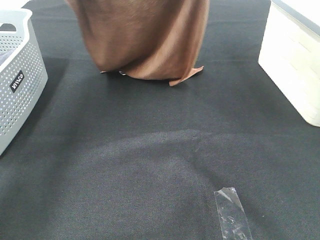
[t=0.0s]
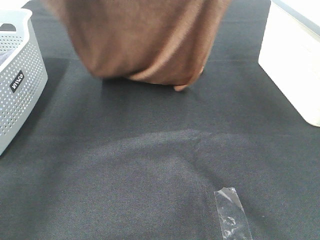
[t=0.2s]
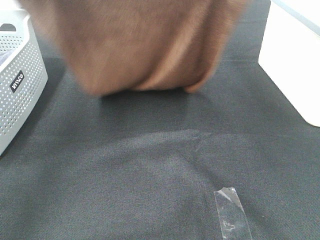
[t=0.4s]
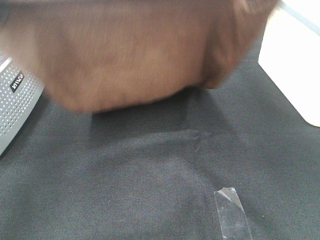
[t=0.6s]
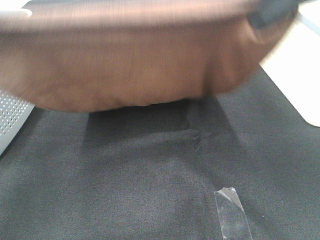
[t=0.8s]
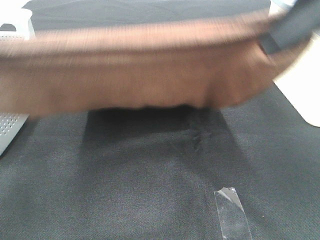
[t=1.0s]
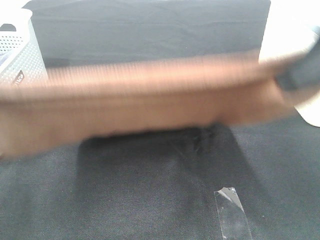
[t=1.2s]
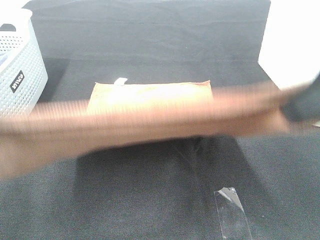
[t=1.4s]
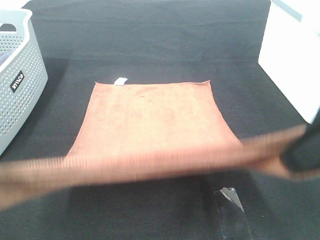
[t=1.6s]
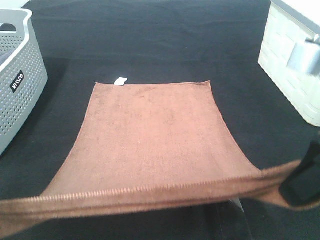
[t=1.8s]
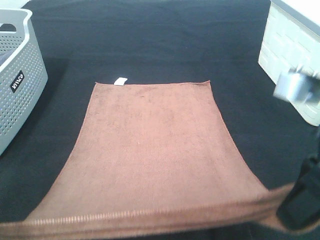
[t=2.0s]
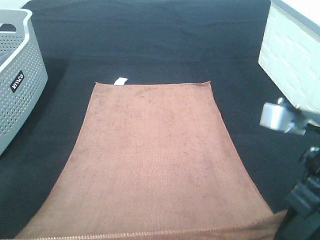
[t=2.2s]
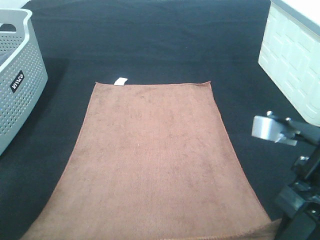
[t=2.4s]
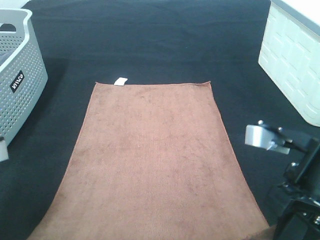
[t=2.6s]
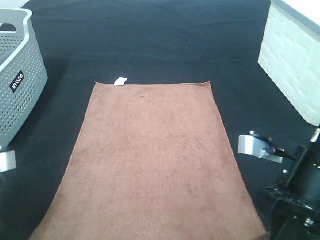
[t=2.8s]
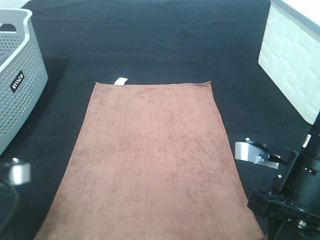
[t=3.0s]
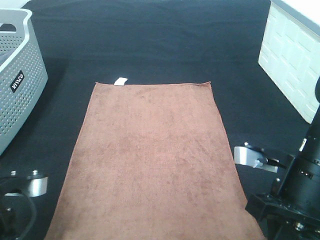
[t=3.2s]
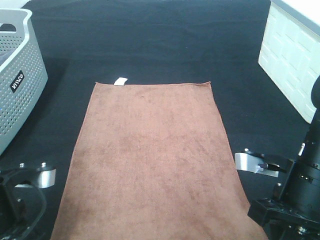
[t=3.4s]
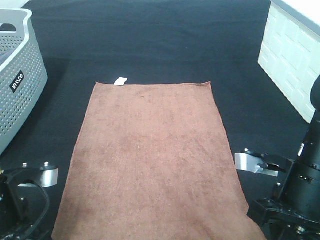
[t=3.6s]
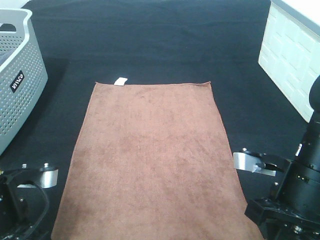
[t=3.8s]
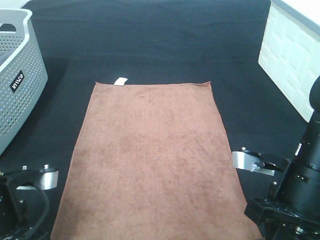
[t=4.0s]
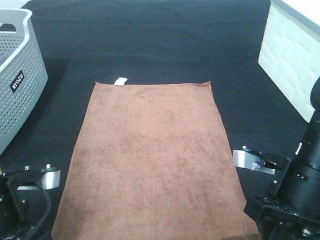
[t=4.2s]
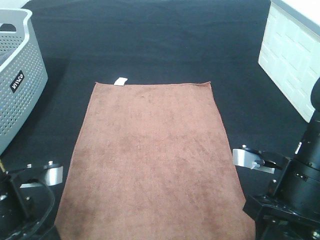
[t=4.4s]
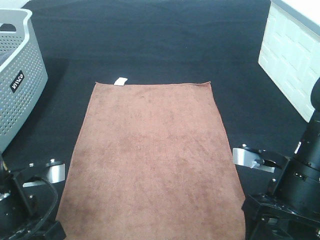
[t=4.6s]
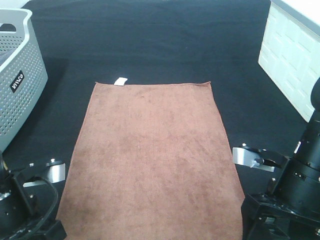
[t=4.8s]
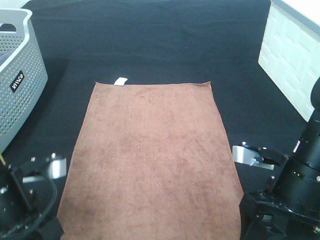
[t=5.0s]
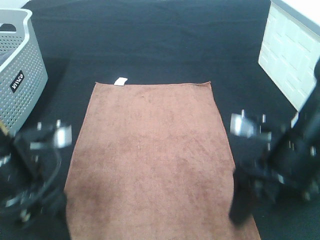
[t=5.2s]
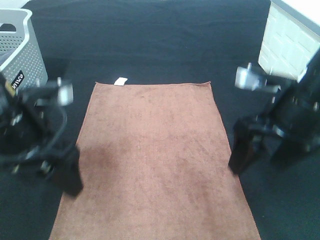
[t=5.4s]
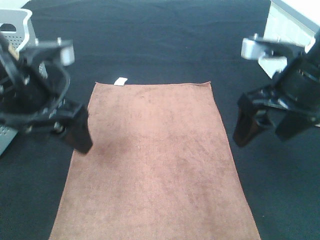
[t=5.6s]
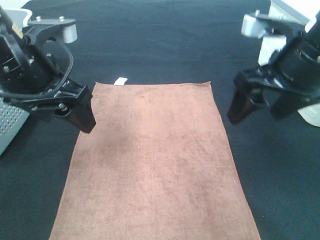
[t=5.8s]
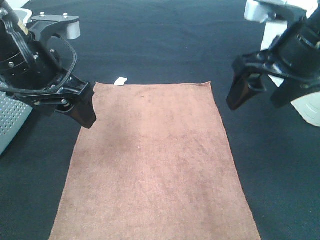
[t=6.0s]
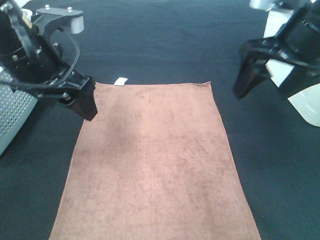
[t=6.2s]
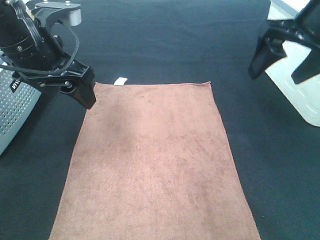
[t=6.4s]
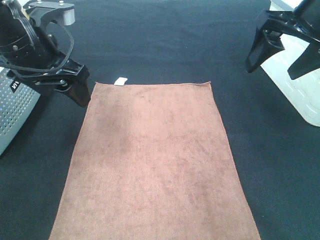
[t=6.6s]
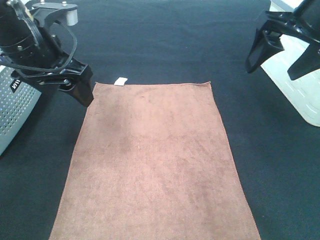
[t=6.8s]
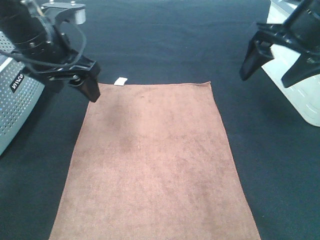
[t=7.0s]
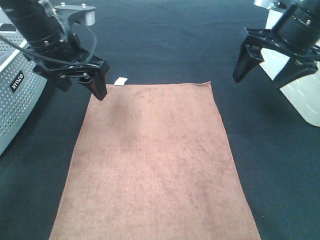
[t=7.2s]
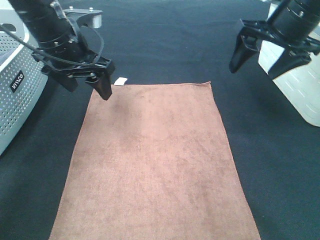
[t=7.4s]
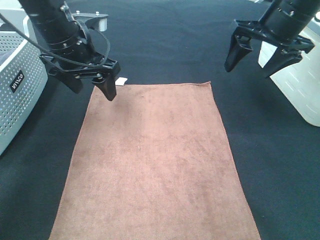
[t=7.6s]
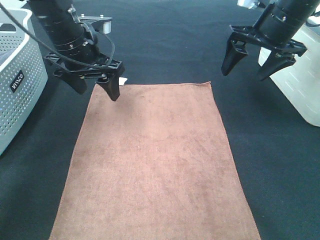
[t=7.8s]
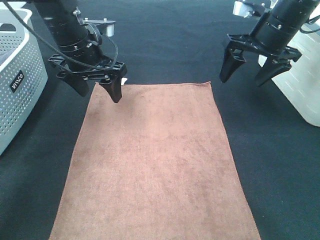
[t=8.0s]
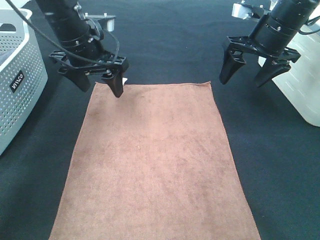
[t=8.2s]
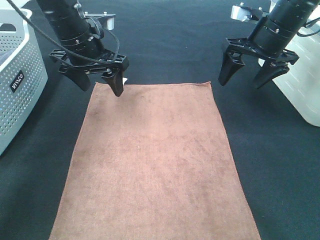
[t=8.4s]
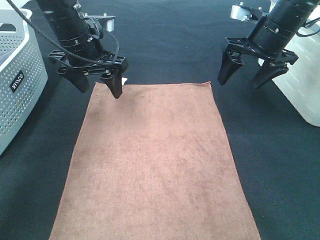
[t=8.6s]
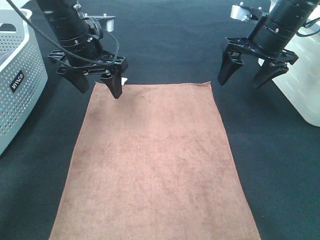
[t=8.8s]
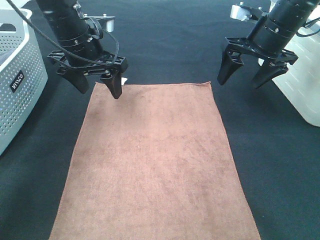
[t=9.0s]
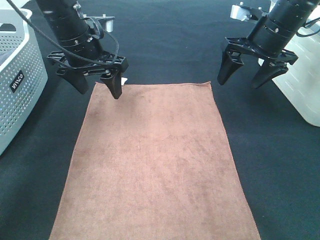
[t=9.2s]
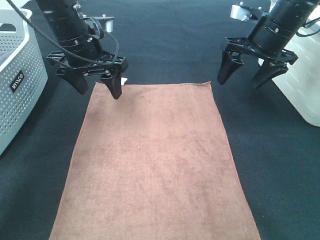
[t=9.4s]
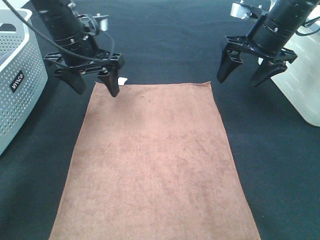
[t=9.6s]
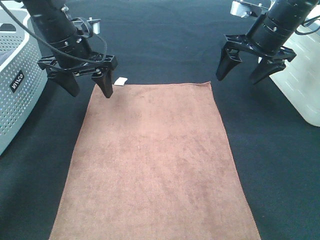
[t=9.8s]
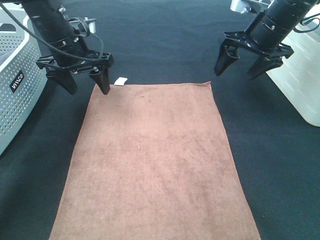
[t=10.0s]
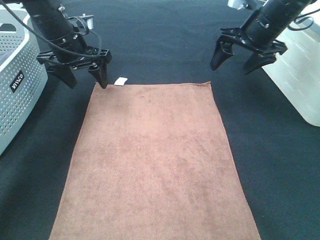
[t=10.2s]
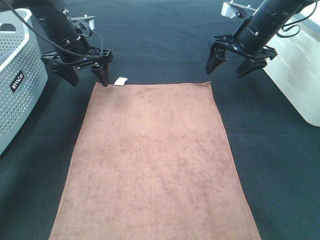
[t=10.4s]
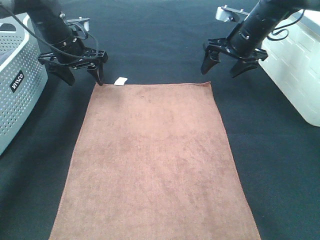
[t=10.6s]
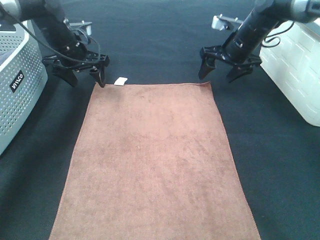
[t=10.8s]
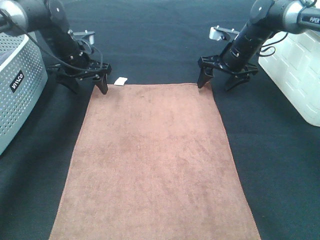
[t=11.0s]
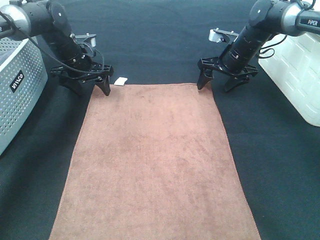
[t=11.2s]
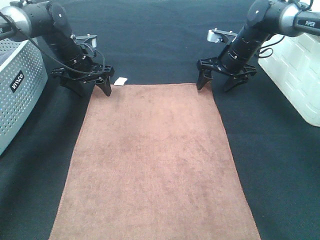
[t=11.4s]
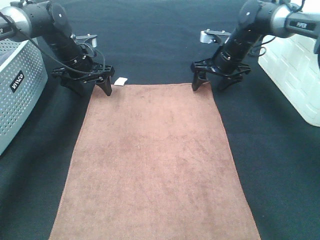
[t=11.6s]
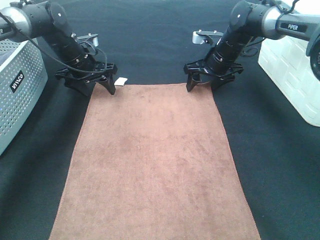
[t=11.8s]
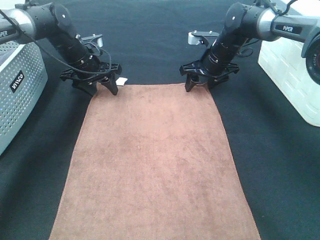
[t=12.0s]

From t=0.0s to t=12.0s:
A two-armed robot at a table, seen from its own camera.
Task of the whole recording: Remove the towel and place it.
Step, from t=0.8s to t=9.8s: Left hand:adjust the brown towel.
Step, from t=0.8s to t=9.8s: Right hand:adjust the brown towel.
From t=0.0s to t=1.6s: The two grippers go roughly 25 cm backward and downward.
From t=1.6s to t=3.0s: The grippers both shift downward by roughly 15 cm.
From t=3.0s to t=4.4s: The left gripper opens its fingers, while the right gripper opens up.
From t=4.4s to t=6.0s: The right gripper moves upward and forward, roughly 15 cm, and opens. Meanwhile the left gripper goes roughly 15 cm forward and upward.
From t=6.0s to t=7.6s: Both grippers travel together forward, roughly 10 cm.
From t=7.6s to t=9.0s: The grippers move only a little.
From t=9.0s to t=10.4s: The right gripper shifts about 5 cm forward. The left gripper goes some 10 cm forward and to the left.
From t=10.4s to t=12.0s: The right gripper heads downward and to the left, covering some 10 cm. Meanwhile the left gripper moves downward, approximately 5 cm.

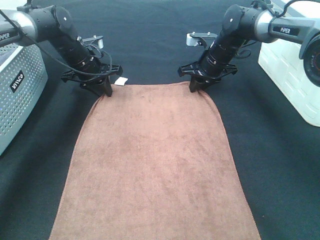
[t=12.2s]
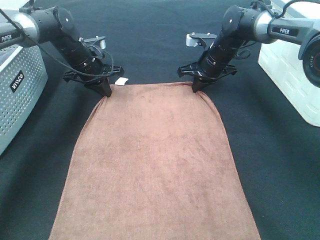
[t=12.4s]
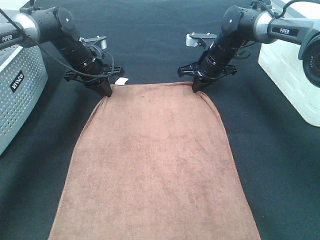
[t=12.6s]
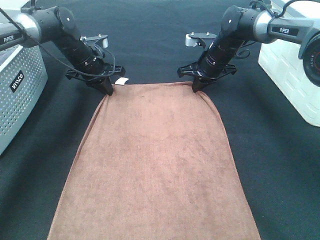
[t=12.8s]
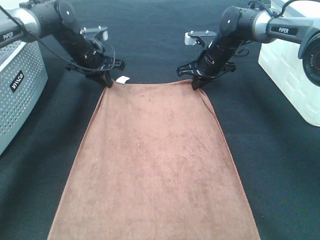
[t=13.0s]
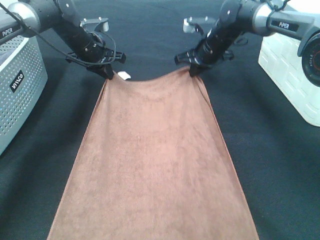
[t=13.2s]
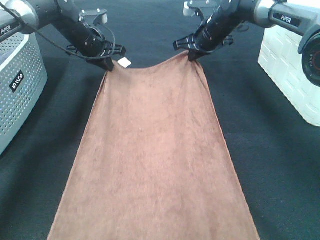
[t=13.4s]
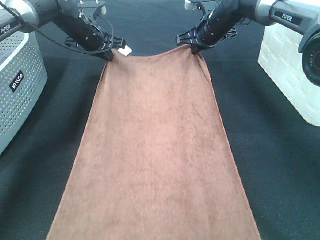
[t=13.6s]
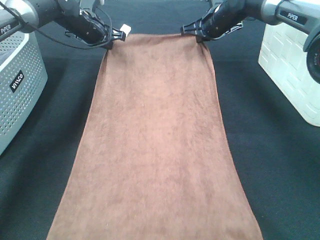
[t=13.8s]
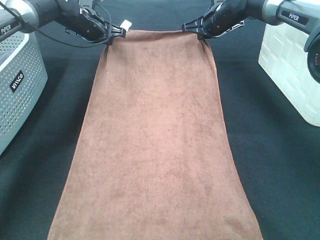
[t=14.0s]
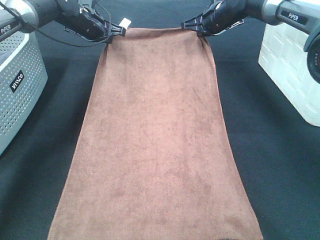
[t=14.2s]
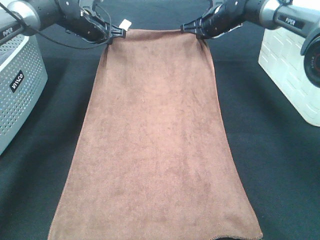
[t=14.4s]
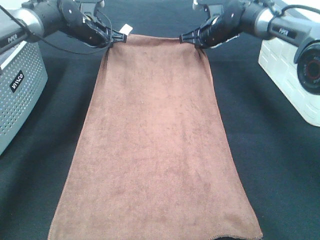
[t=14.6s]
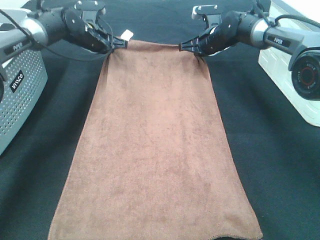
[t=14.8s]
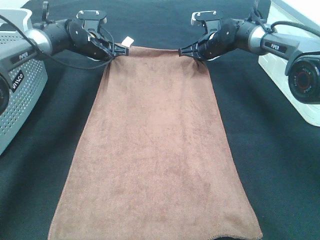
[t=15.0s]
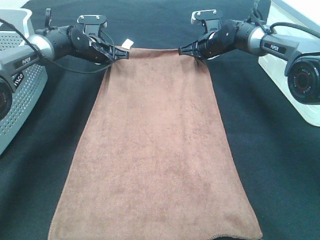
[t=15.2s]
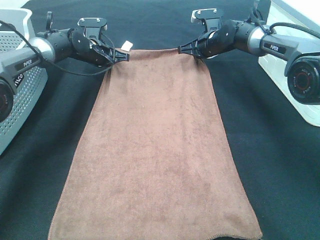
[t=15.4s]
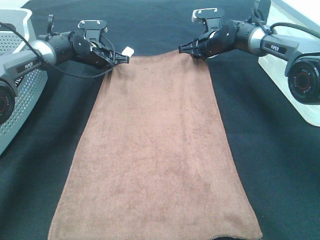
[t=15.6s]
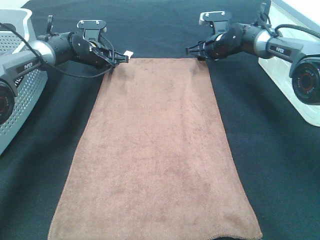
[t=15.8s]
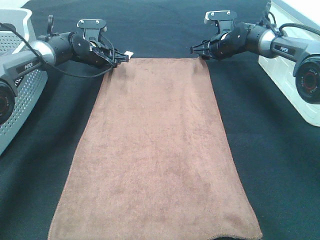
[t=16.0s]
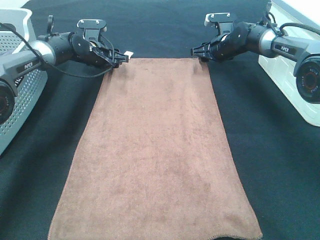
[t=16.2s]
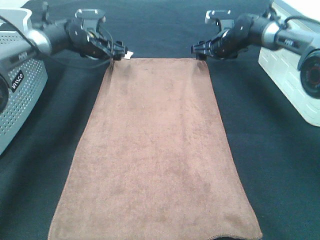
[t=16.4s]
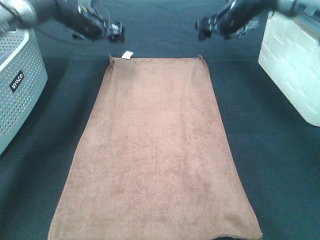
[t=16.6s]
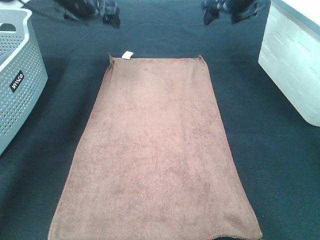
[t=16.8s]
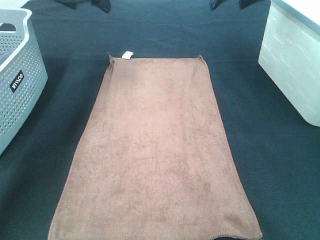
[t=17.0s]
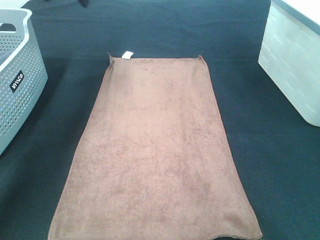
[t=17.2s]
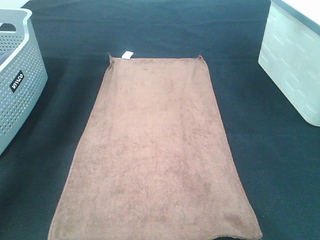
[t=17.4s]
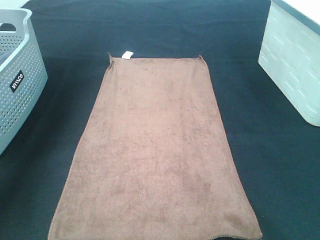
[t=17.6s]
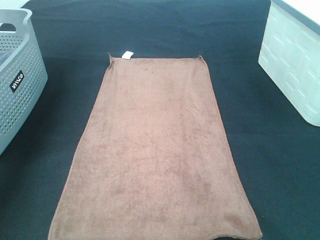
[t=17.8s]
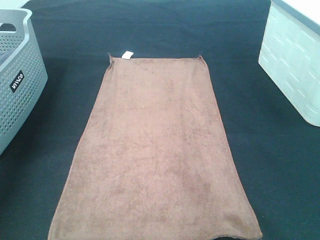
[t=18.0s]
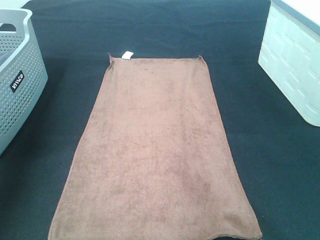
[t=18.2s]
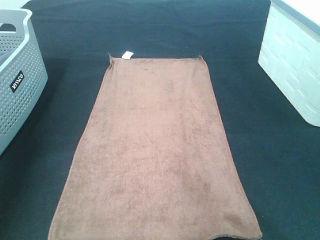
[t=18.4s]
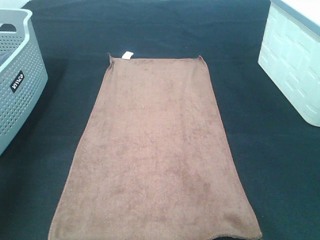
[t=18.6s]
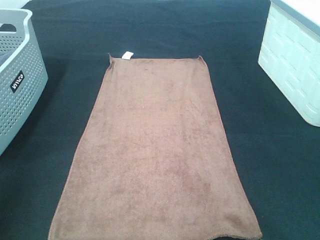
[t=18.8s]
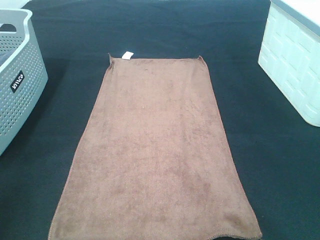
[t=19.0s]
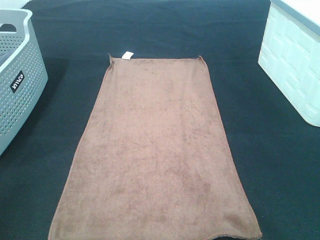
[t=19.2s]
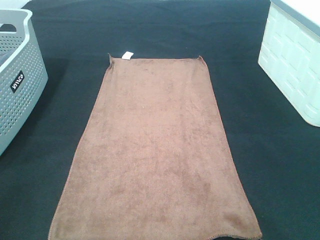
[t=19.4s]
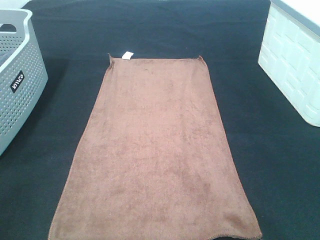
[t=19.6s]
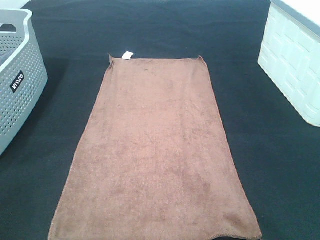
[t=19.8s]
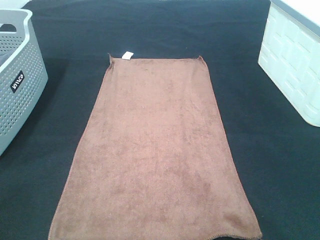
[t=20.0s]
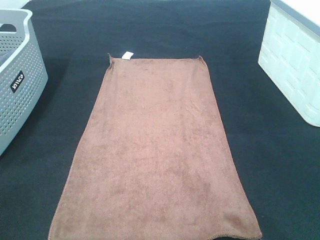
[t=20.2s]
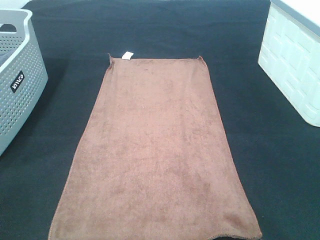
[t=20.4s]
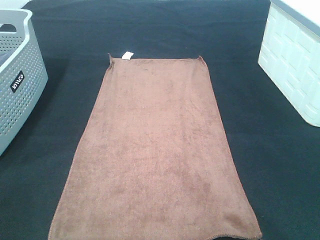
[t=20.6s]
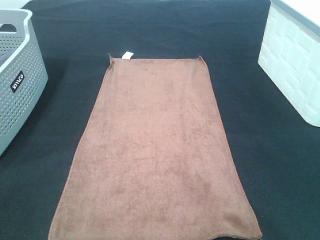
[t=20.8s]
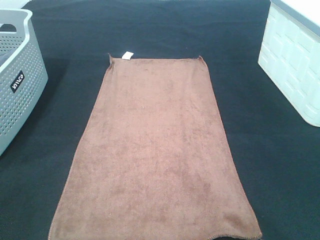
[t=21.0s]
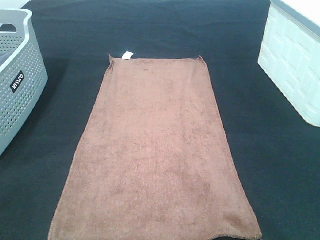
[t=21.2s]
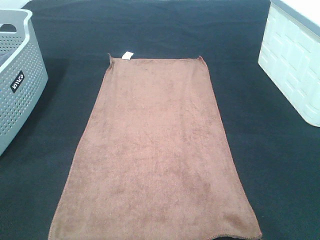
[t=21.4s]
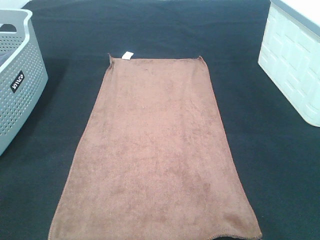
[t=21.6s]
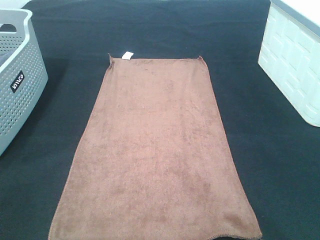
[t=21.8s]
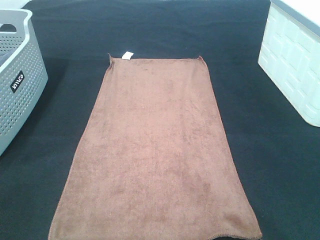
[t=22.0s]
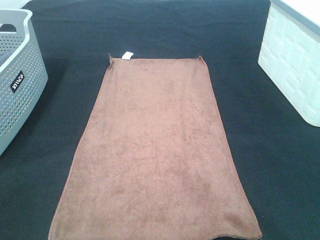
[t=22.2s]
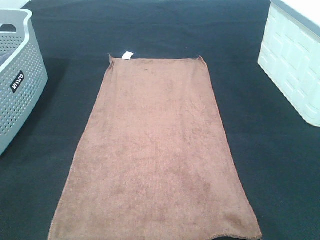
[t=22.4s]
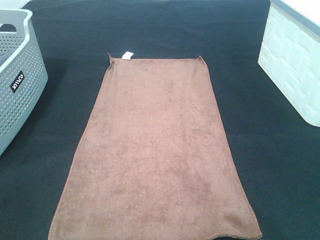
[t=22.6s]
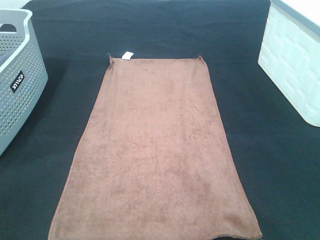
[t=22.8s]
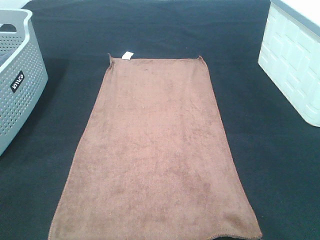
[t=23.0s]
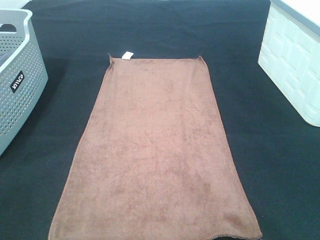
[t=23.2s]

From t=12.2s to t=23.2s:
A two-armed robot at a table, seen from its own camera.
Task of the whole recording: Remove the towel and place it.
From t=12.2s to t=13.8s: Both grippers move upward, approximately 5 cm.
From t=13.8s to t=15.4s: Both grippers travel together downward, roughly 10 cm.
From t=15.4s to t=17.0s: The grippers both shift upward by some 20 cm. The right gripper opens. Meanwhile the left gripper opens its fingers.
From t=17.0s to t=18.4s: The right gripper is displaced backward by about 30 cm; the left gripper goes some 35 cm backward, to the left and upward.
From t=18.4s to t=20.0s: The left gripper moves backward and downward, roughly 25 cm.
From t=21.6s to t=23.2s: The two grippers keep their place.
